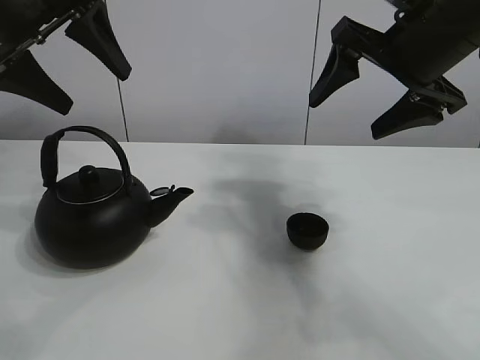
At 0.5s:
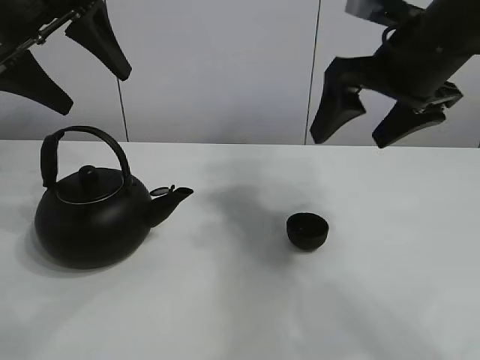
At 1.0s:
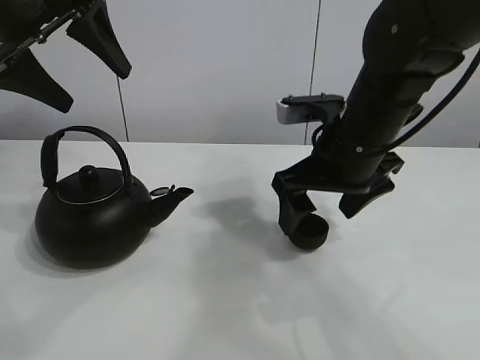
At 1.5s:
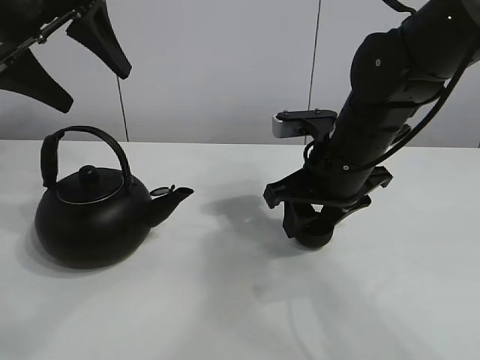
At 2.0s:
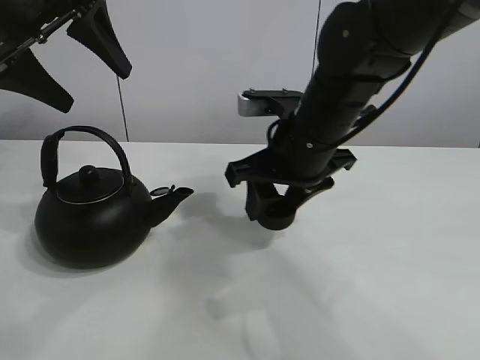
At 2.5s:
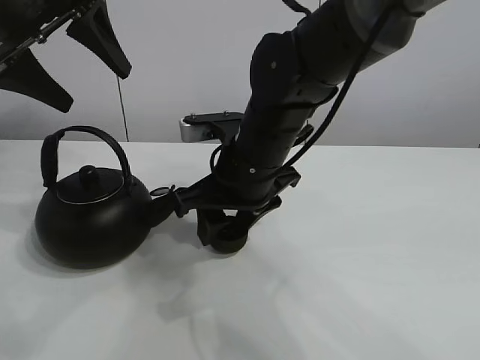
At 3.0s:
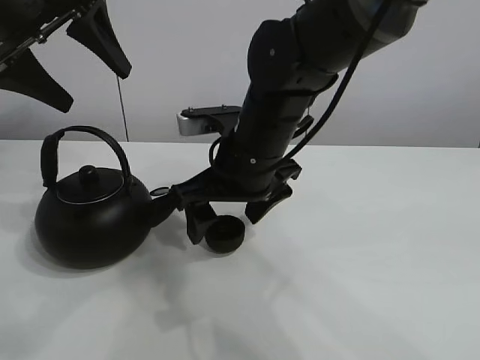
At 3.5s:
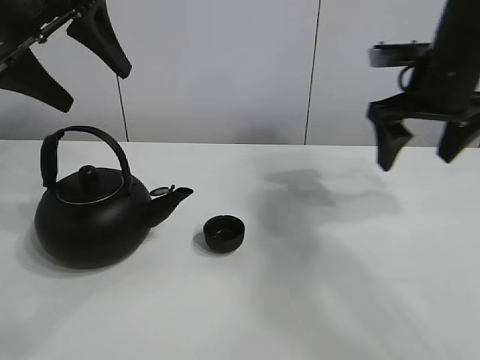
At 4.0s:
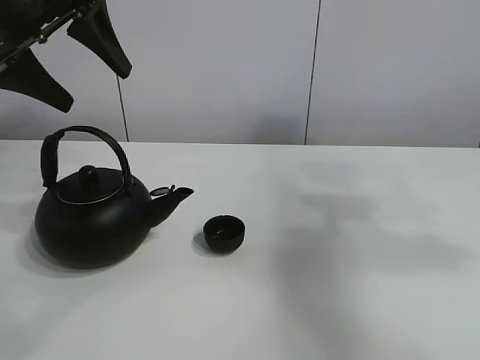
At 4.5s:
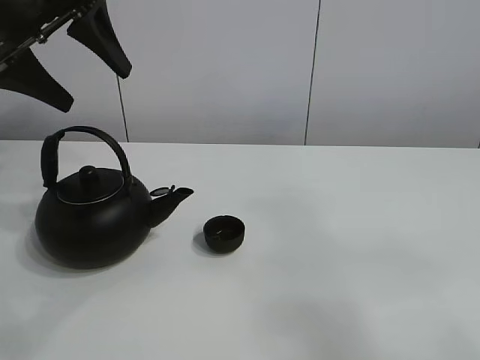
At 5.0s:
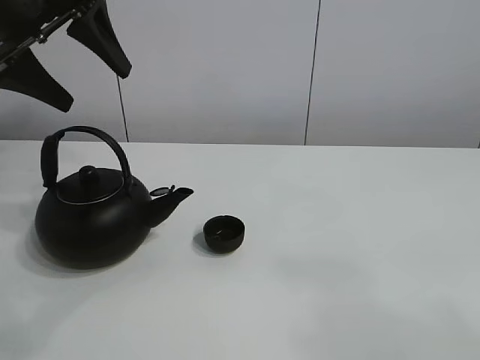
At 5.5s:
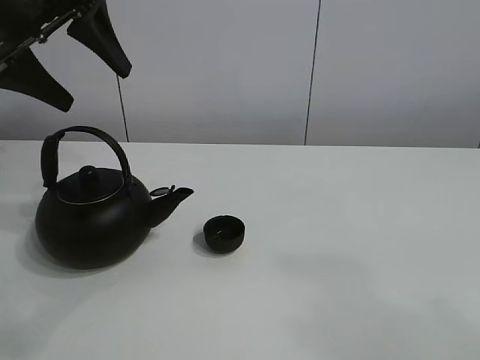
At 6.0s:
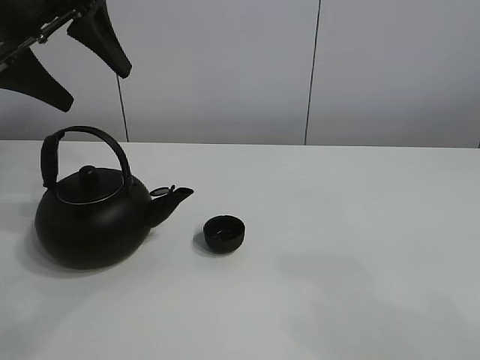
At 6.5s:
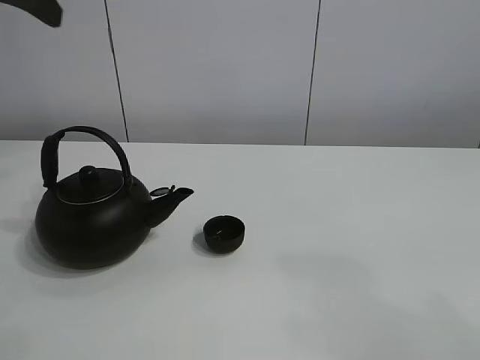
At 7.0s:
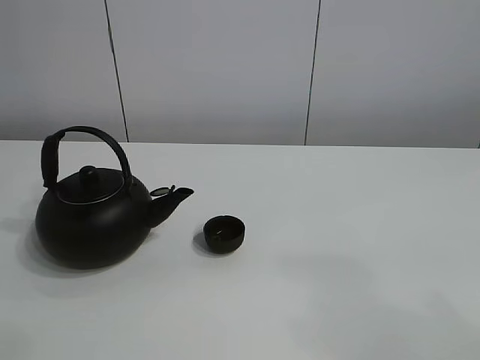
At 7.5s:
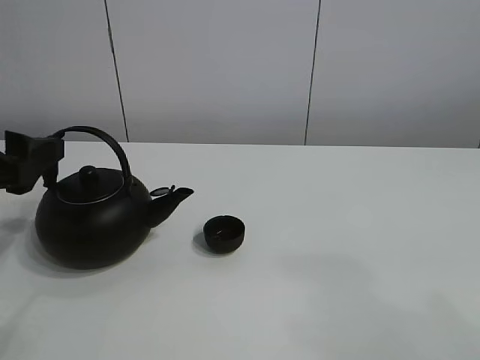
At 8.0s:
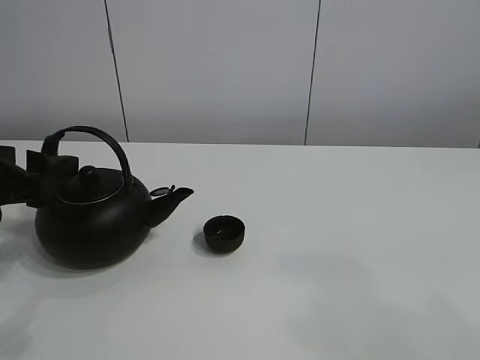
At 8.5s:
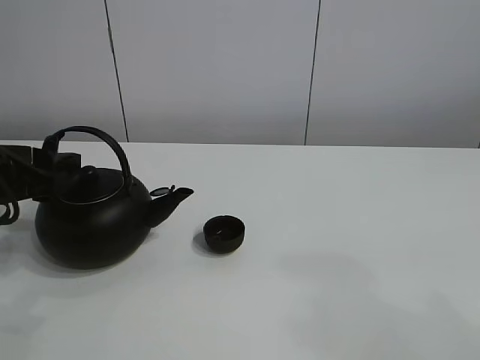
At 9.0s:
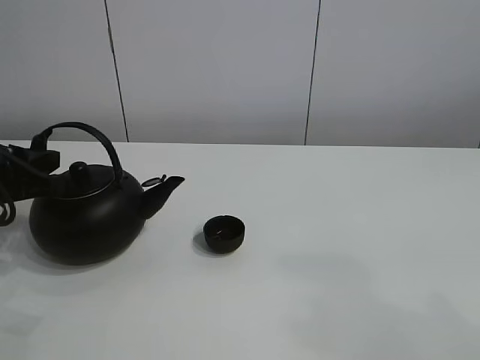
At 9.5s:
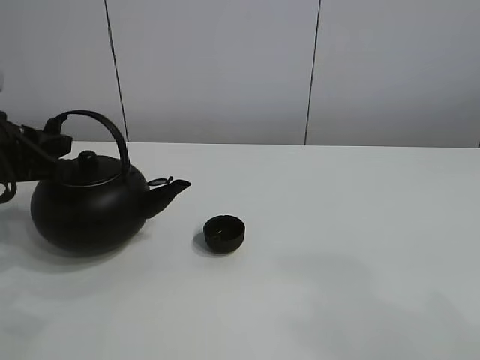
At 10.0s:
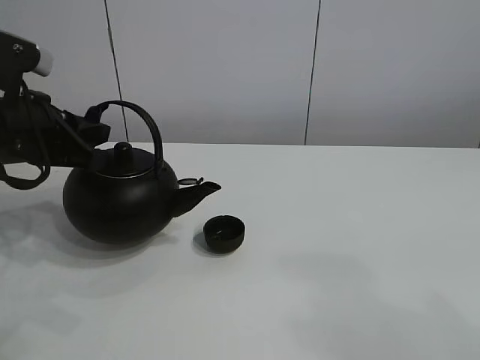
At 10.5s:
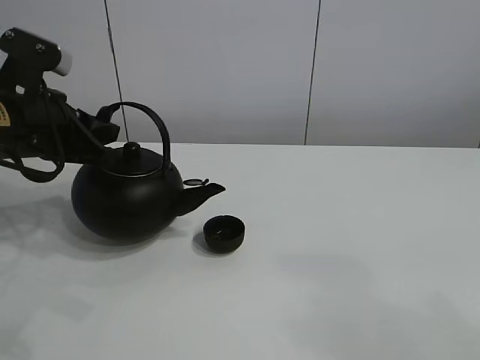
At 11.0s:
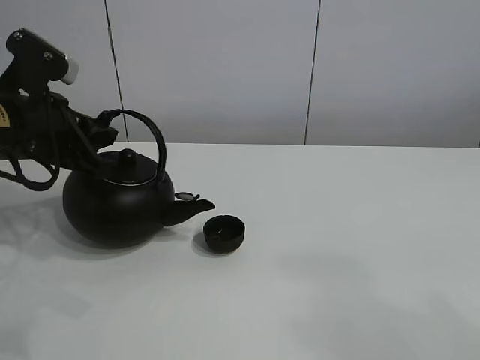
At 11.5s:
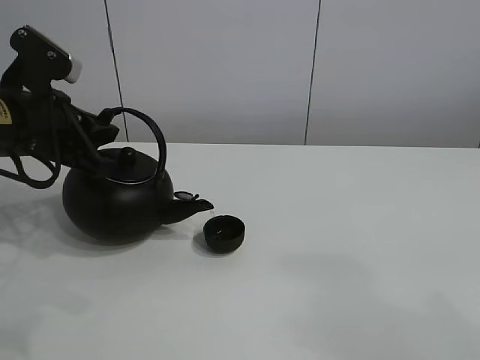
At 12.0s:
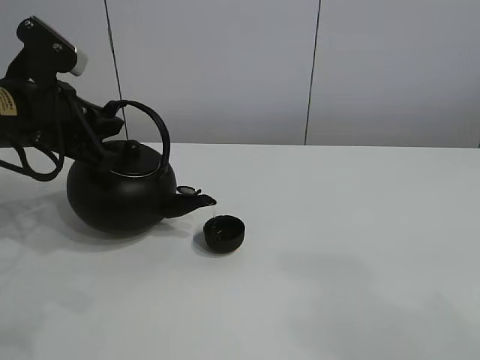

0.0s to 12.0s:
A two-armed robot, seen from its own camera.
Task of the whole recording: pour tea into the teacup.
Step, 0.0s to 1.5s: Pick up the teacup with the right gripper.
Step, 2.0s to 2.5s: Place the teacup in the center of view with the right gripper.
Step, 3.0s to 9.0s: Pick up the teapot with the left gripper.
2.0s to 4.0s: The right gripper is displaced to the right and upward by roughly 30 cm, and opens.
4.0s to 6.0s: The right gripper travels backward by about 30 cm.
6.0s to 8.0s: The left gripper is displaced downward and backward by roughly 20 cm.
8.0s to 10.0s: The left gripper shifts by about 5 cm, and closes its fingers.
10.0s to 12.0s: The grippers make only small movements.

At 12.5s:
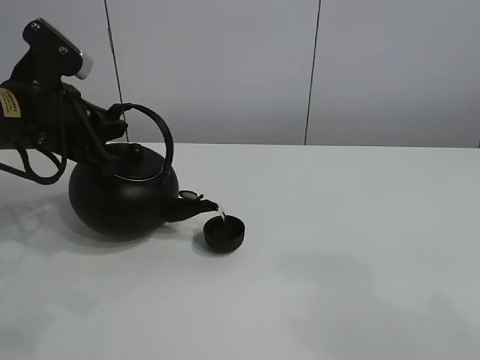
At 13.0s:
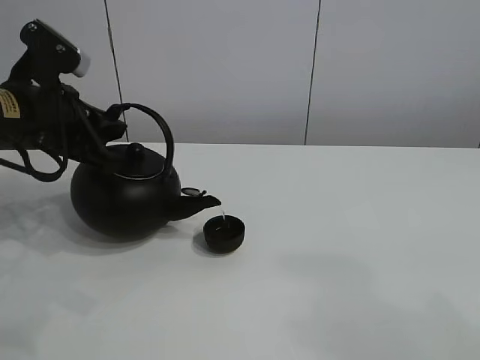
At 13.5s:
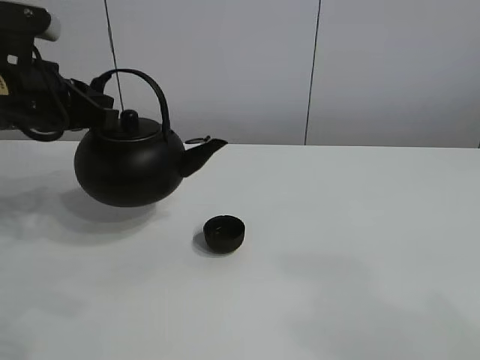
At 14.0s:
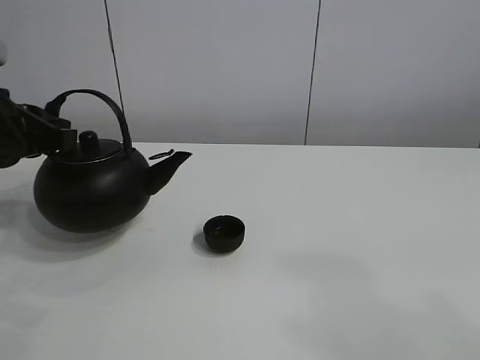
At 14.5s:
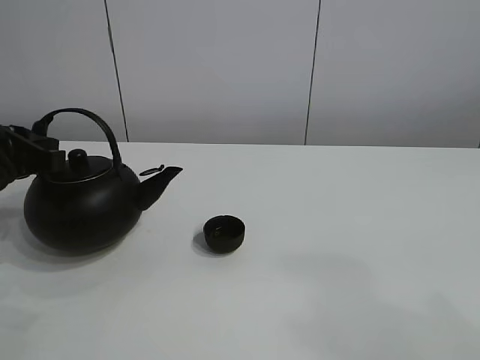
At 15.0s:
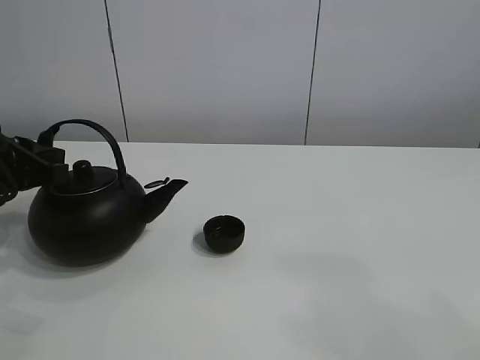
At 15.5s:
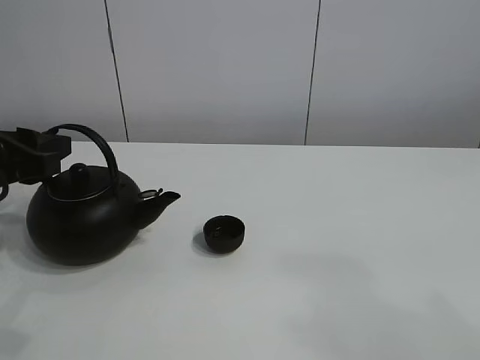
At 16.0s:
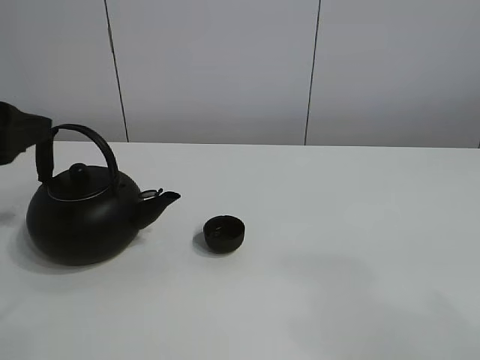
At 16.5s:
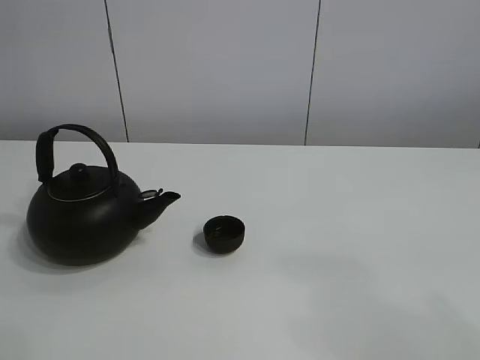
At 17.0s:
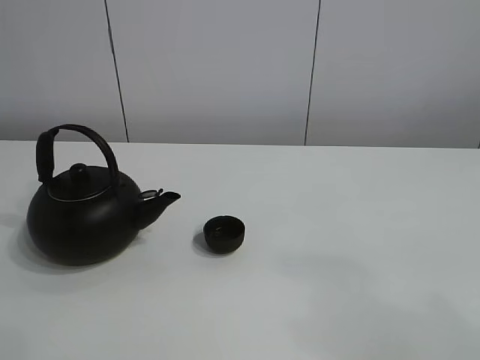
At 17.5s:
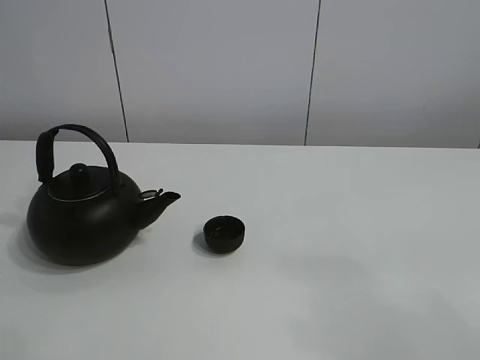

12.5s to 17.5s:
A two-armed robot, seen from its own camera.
Task of the whole recording: pour tea into the teacup.
12.5s to 15.0s: The left gripper goes some 5 cm to the left.
15.0s to 17.5s: The left gripper heads backward and upward, covering roughly 30 cm, and opens.

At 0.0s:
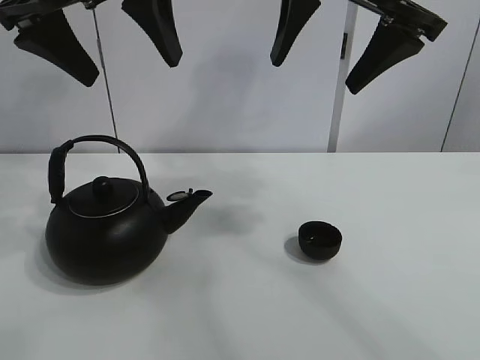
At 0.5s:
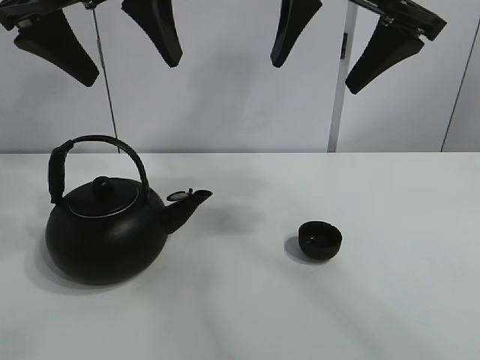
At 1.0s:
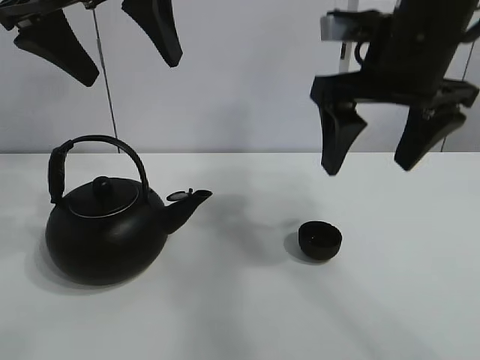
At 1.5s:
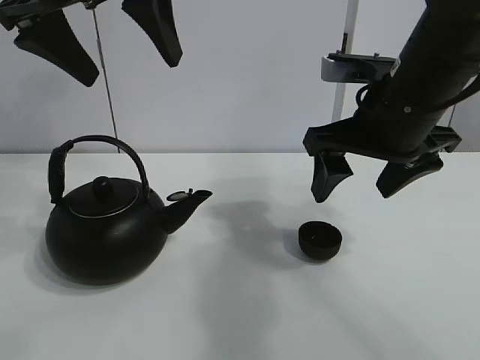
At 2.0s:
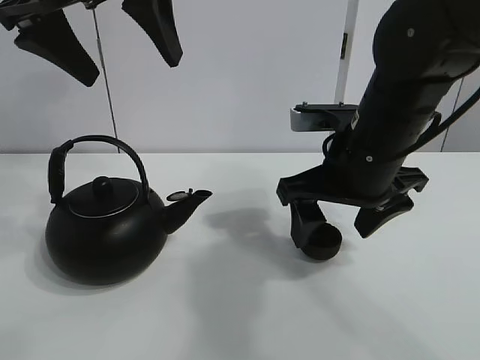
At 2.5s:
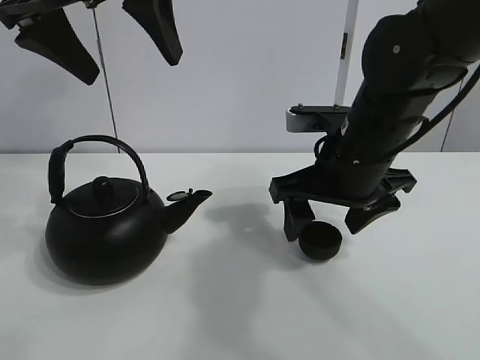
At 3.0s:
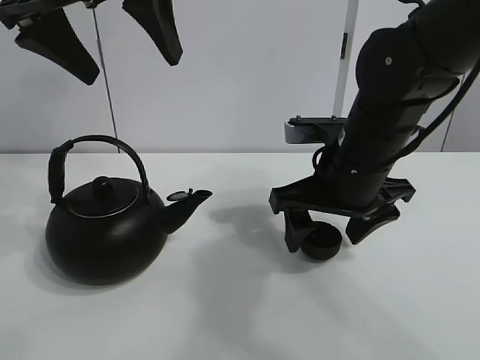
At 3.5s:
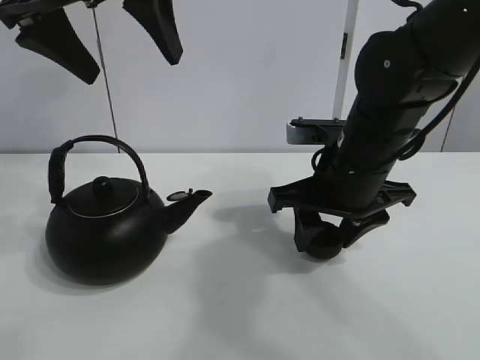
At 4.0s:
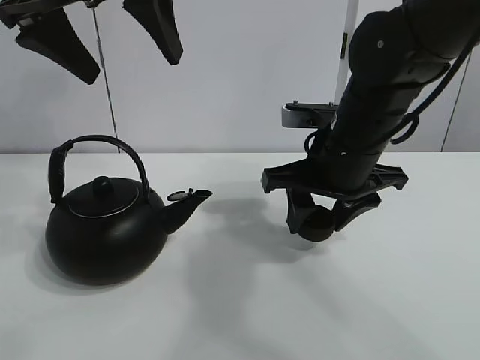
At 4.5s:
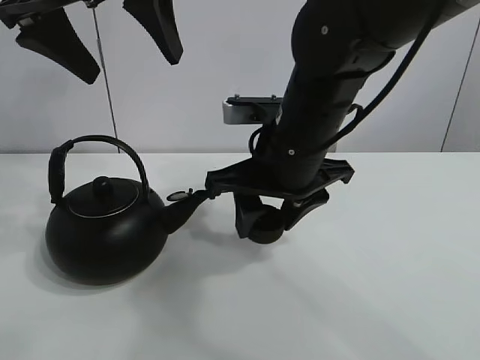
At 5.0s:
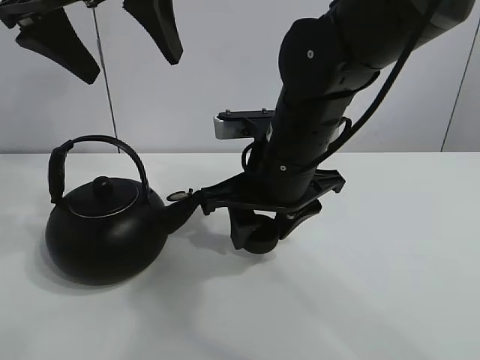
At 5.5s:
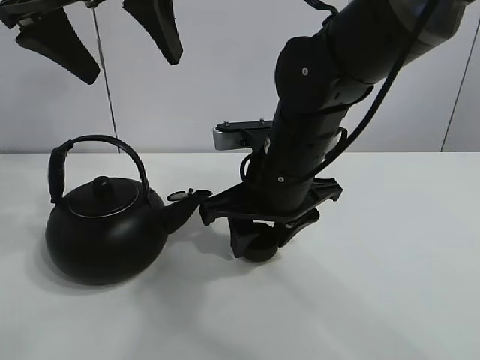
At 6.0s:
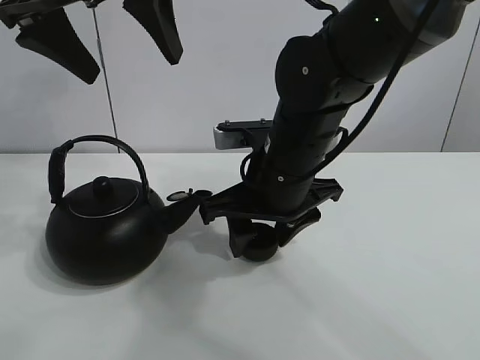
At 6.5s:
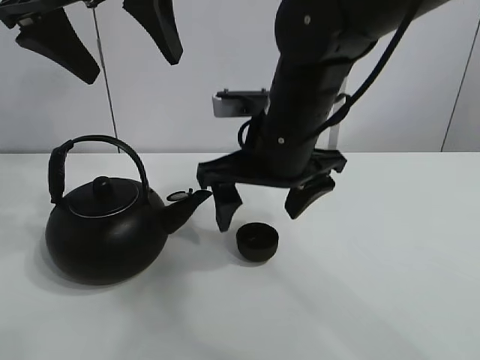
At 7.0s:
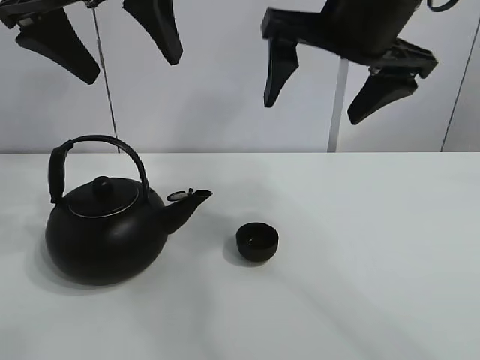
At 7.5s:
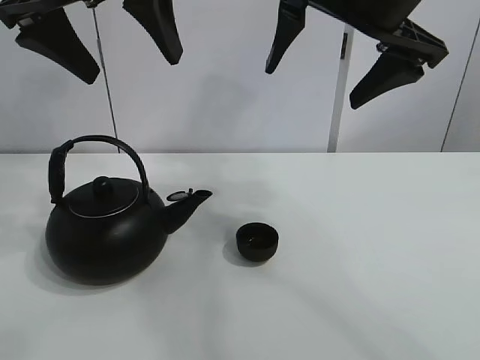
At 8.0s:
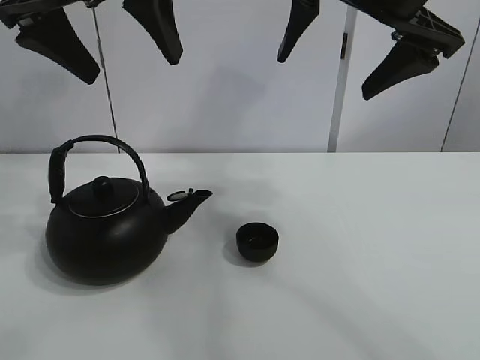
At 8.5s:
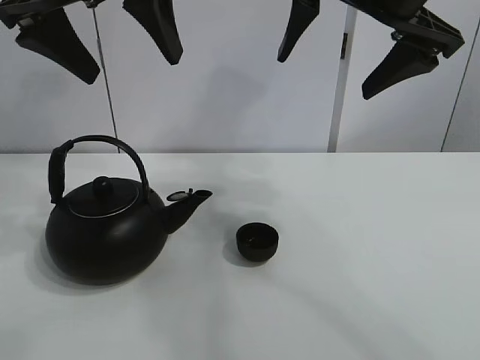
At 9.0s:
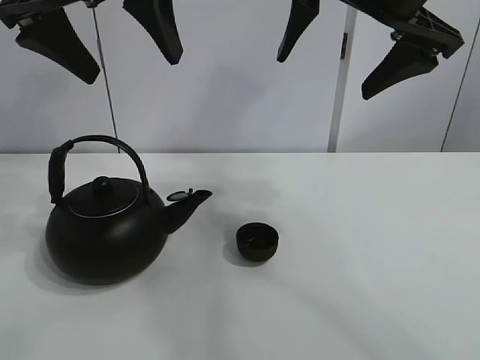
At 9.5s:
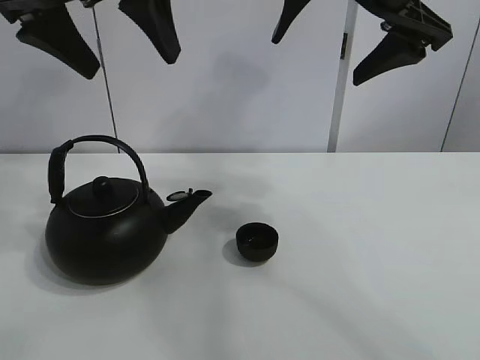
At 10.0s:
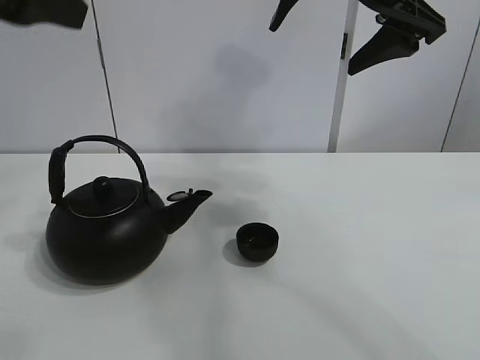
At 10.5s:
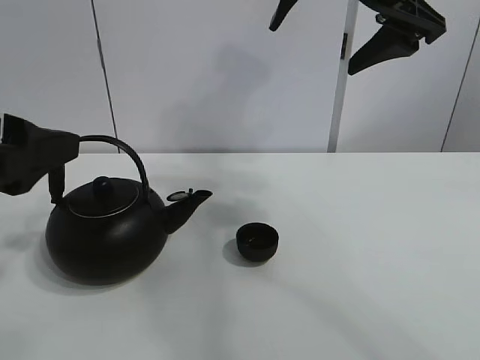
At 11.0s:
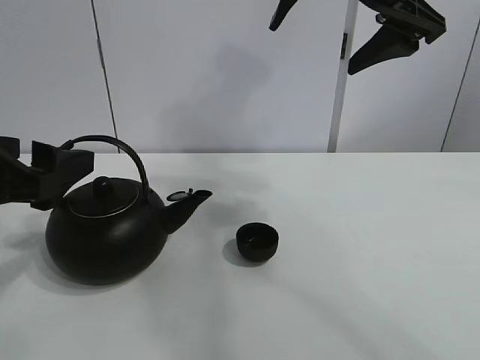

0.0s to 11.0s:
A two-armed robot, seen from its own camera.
Task of the whole recording: pour tea into the teacup.
Step, 0.0s to 3.5s: Pick up the teacup with the right gripper.
Step, 4.0s to 6.0s: Place the teacup in the center of view with the right gripper.
2.0s to 3.5s: The right gripper closes up.
3.5s to 5.5s: The right gripper goes about 5 cm to the left.
5.5s to 7.5s: The right gripper shifts some 20 cm upward and to the right, and opens its fingers.
7.5s to 9.0s: Both grippers stay about where they are.
9.0s to 11.0s: The left gripper travels downward, backward and to the left by roughly 20 cm.
